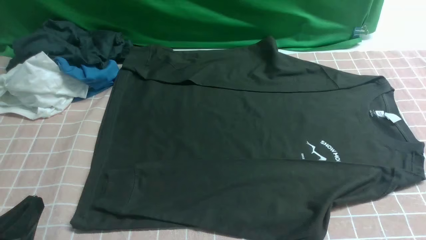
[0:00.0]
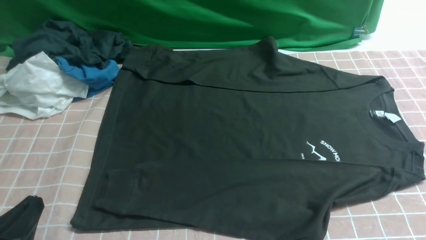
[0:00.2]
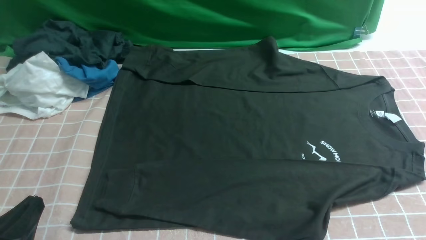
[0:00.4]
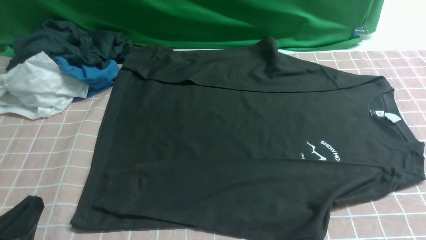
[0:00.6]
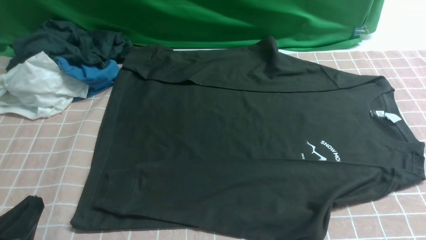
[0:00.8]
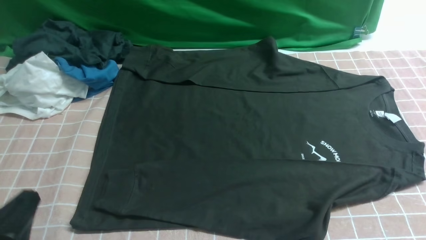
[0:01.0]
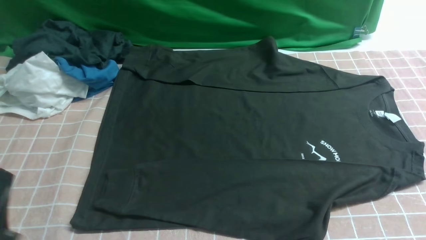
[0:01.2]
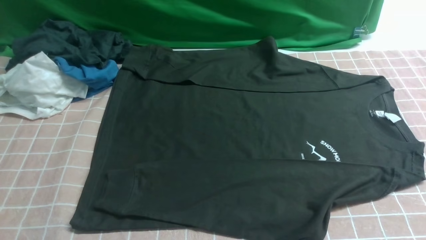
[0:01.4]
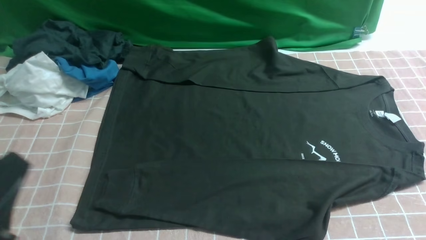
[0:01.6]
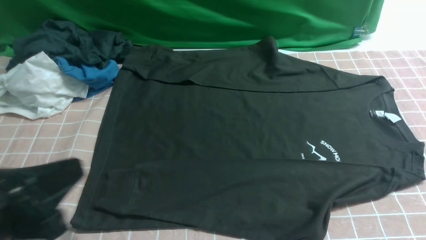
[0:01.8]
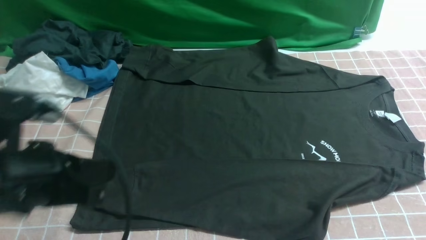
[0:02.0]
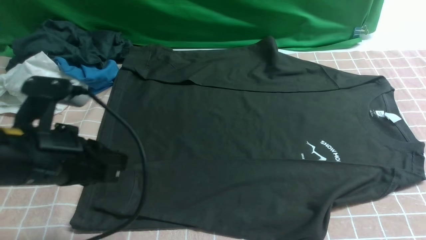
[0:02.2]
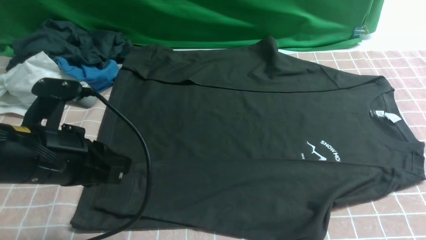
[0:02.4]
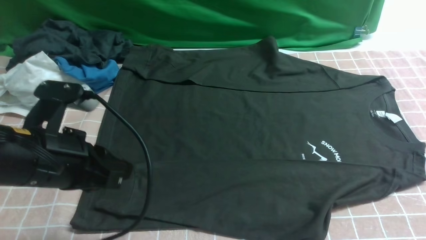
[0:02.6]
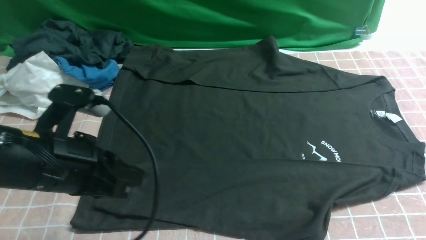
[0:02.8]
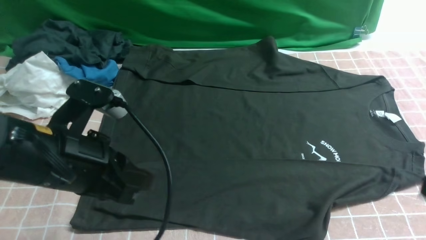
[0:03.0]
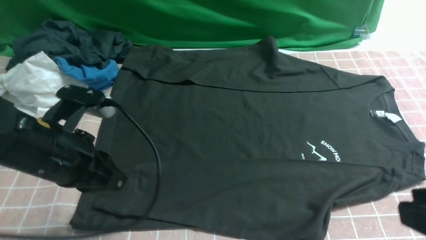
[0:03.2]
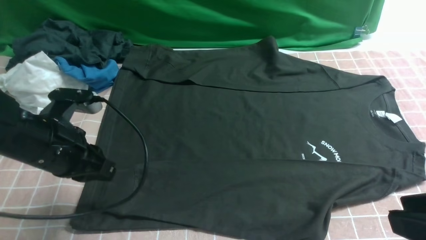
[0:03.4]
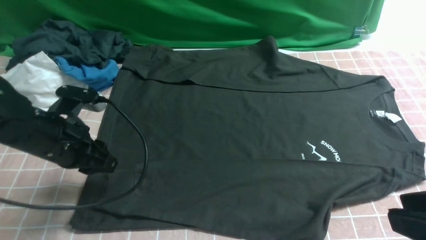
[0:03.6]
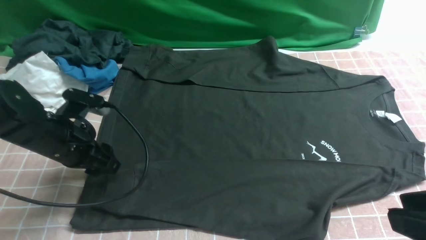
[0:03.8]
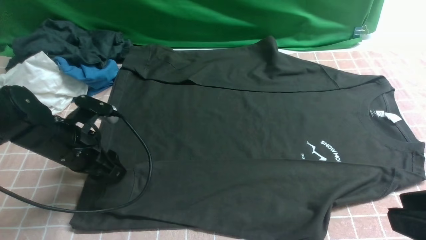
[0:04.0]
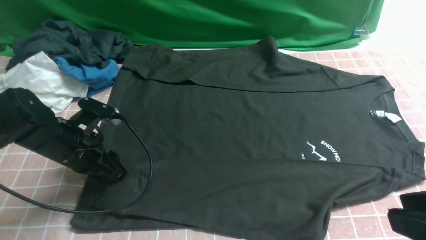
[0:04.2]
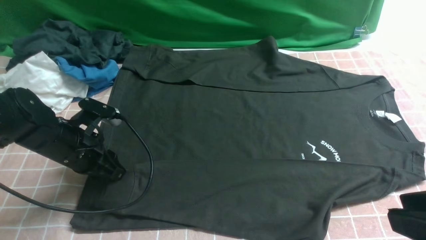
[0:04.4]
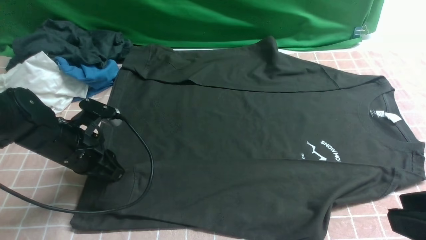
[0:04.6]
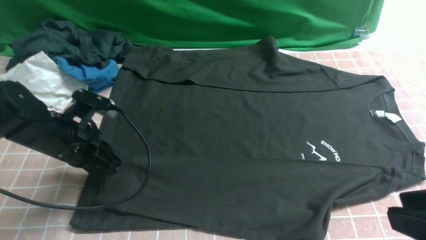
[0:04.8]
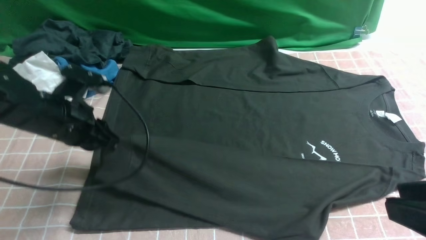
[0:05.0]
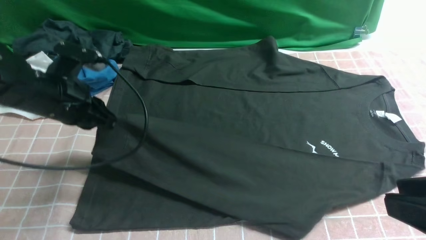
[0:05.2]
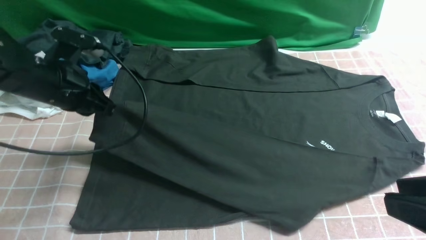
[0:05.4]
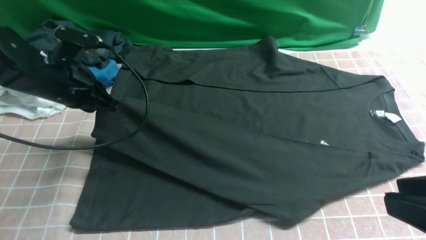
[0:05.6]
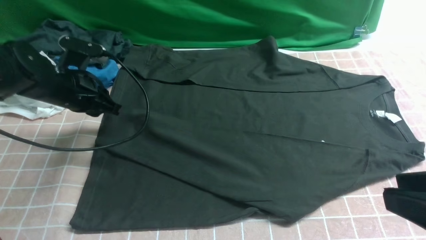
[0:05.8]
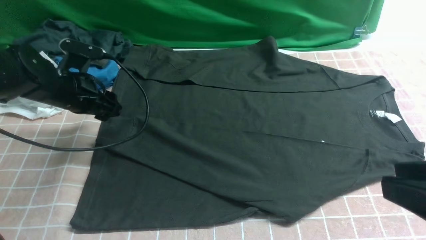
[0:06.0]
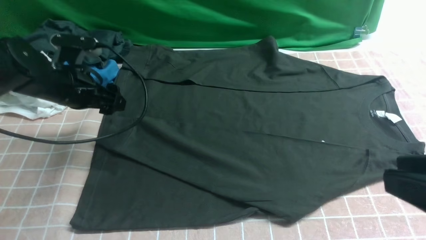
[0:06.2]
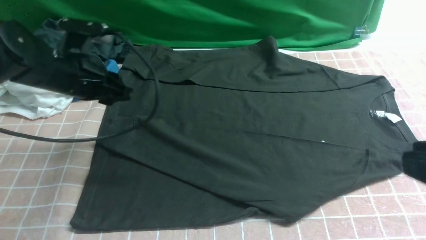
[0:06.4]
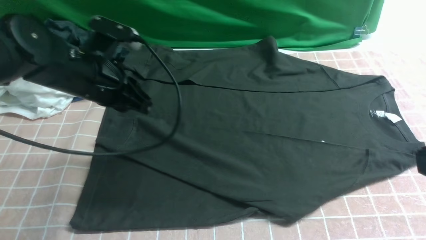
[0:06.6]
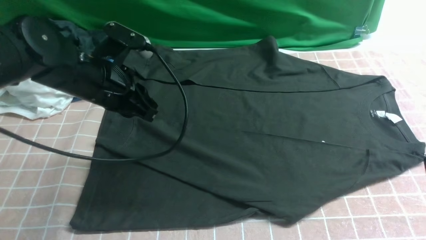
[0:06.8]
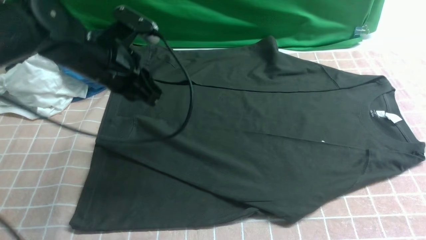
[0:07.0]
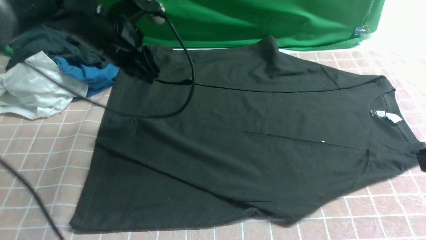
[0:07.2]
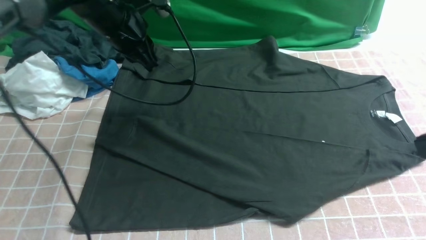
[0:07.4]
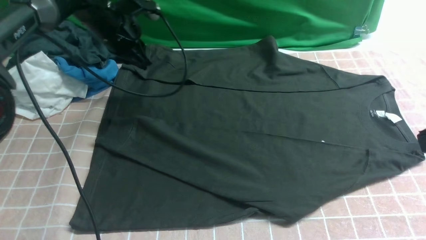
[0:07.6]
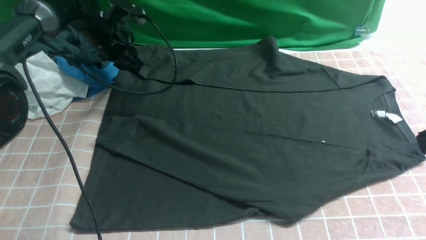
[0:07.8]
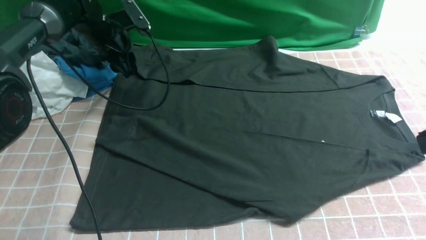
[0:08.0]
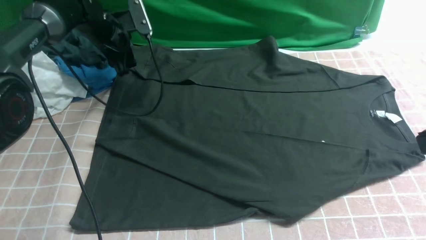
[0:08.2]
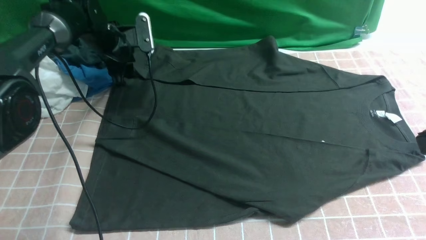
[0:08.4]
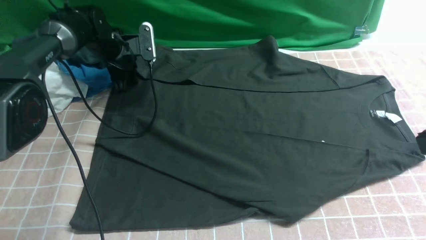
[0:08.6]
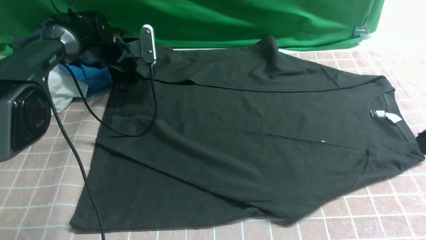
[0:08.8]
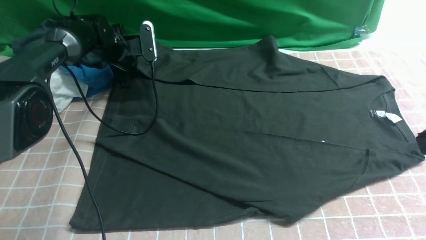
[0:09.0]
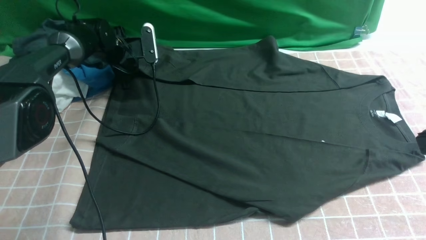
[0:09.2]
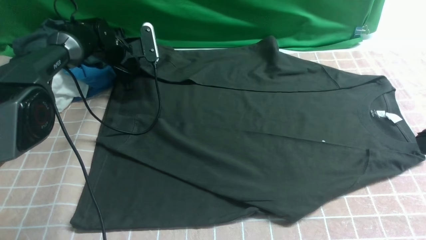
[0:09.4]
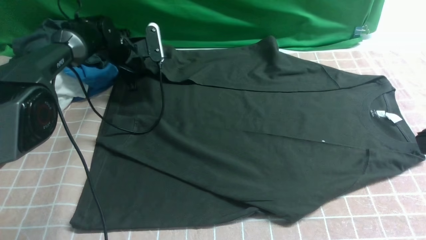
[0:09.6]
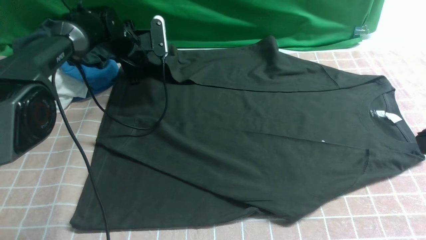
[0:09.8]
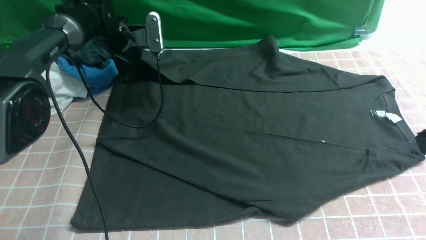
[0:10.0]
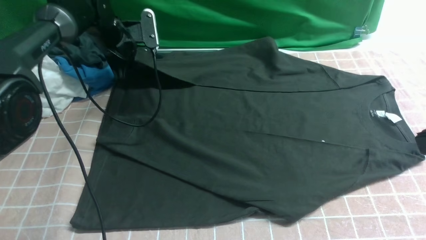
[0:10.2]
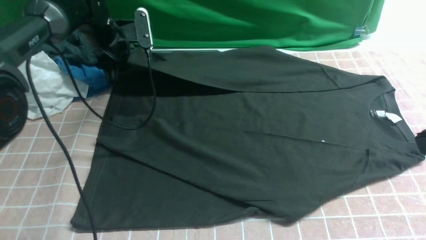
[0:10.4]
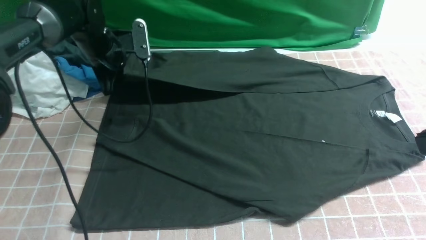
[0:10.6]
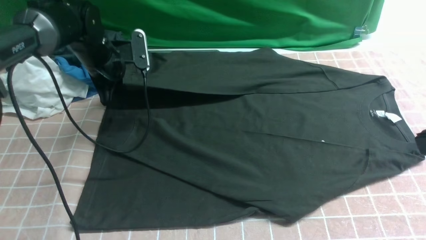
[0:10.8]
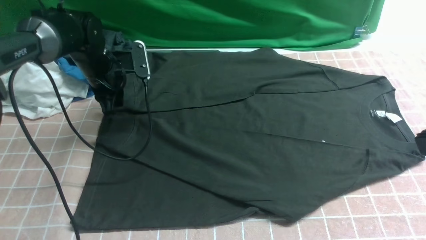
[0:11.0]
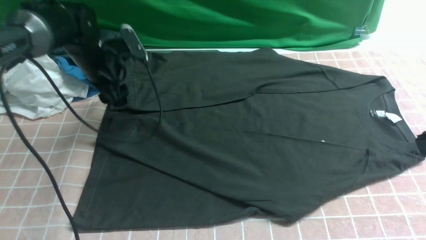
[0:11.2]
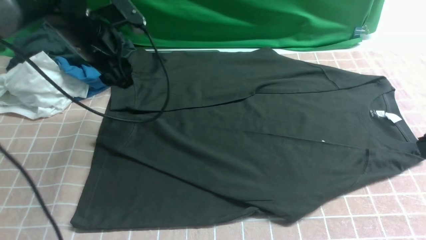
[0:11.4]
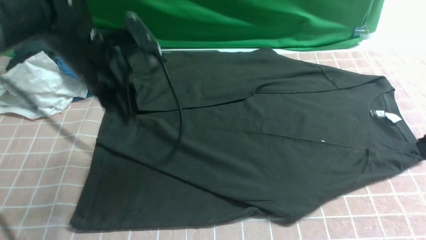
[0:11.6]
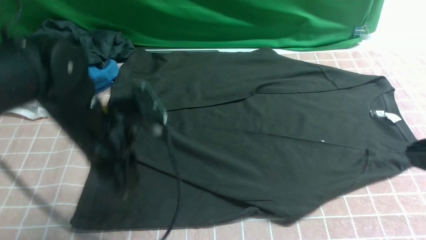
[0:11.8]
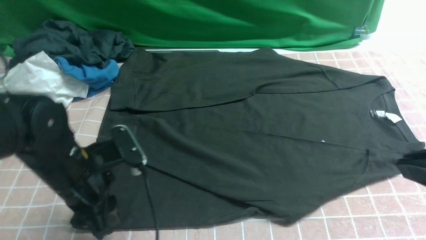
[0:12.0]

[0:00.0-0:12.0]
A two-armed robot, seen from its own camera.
Step, 0:00.0 to 0:04.8: use the left arm to clamp the cuff closest to it.
Step, 0:05.0 to 0:06.2: use the left arm to drag and place the cuff at the centered position on the left edge of the fabric.
Step, 0:06.4 to 0:09.6: use the left arm to clamp the cuff farthest from it.
Step, 0:09.8 to 0:11.4: use the left arm to drag and drop the cuff onto the cuff closest to the left arm.
0:00.0 to 0:01.6: The left gripper shifts roughly 10 cm upward.
0:01.6 to 0:03.0: The left gripper shifts approximately 15 cm forward.
0:03.0 to 0:04.4: The left gripper goes some 15 cm downward, forward and to the left, and opens, then closes again.
0:04.4 to 0:06.0: The left gripper travels forward and upward by some 10 cm, and opens up.
0:06.0 to 0:07.6: The left gripper travels forward by about 10 cm, and closes up. The right gripper closes its fingers.
0:07.6 to 0:09.0: The left gripper goes some 10 cm downward and forward, and opens up.
0:09.0 to 0:10.4: The left gripper is displaced upward by roughly 5 cm, and closes up.
0:10.4 to 0:12.0: The left gripper is displaced backward by some 25 cm, and opens its fingers.

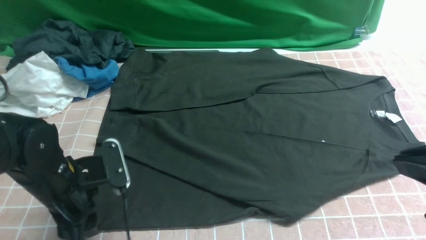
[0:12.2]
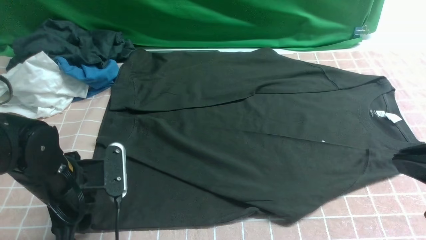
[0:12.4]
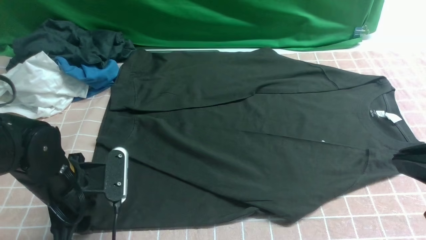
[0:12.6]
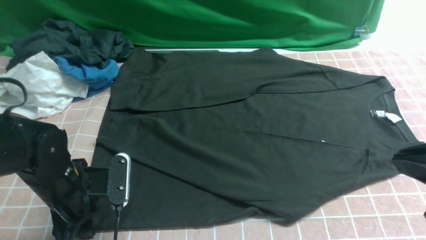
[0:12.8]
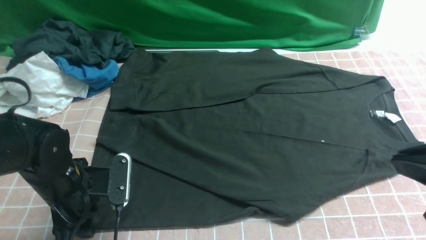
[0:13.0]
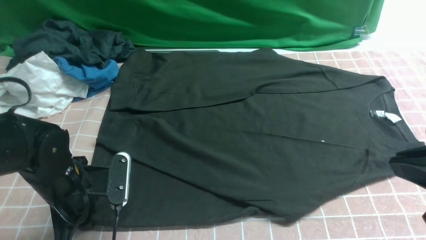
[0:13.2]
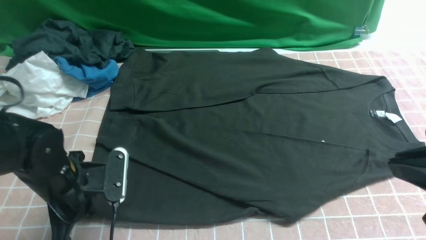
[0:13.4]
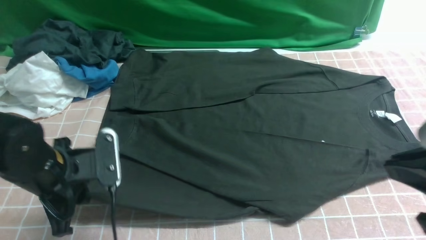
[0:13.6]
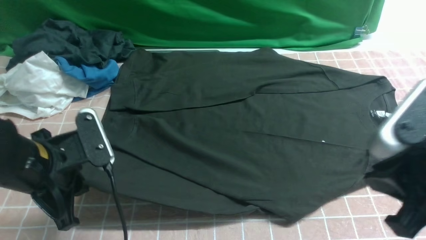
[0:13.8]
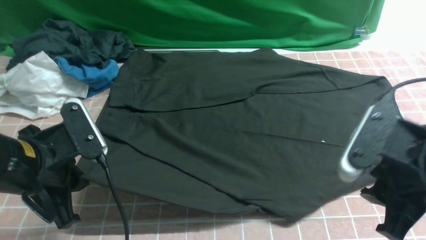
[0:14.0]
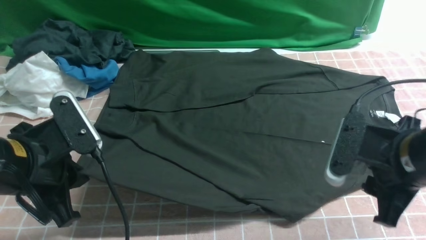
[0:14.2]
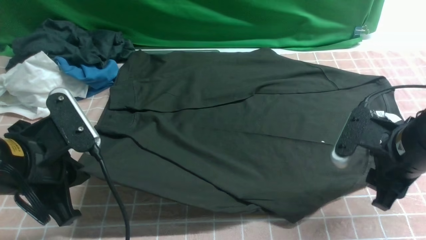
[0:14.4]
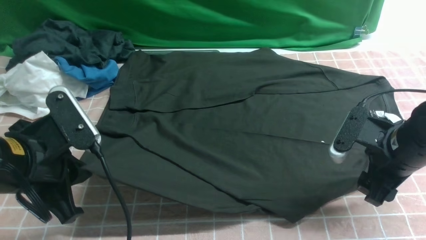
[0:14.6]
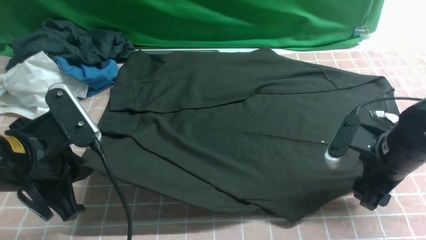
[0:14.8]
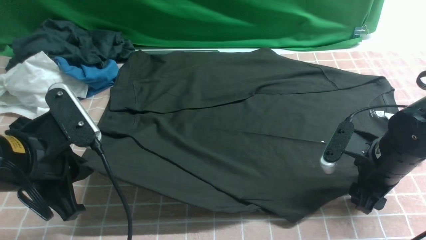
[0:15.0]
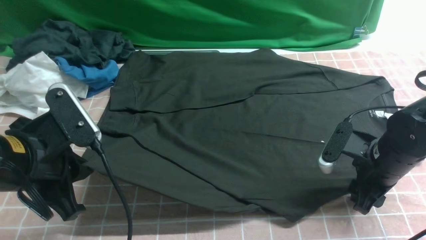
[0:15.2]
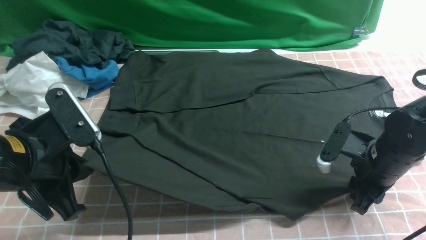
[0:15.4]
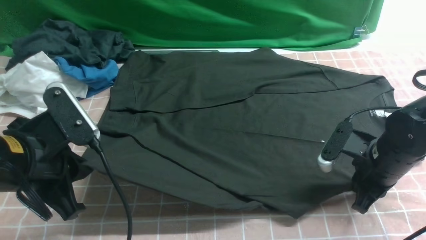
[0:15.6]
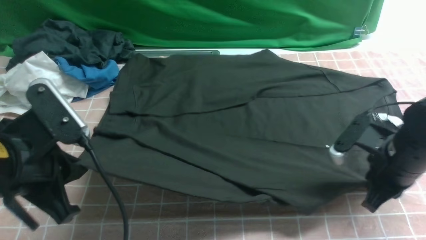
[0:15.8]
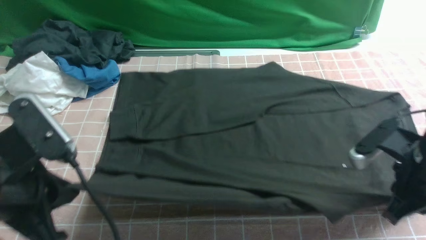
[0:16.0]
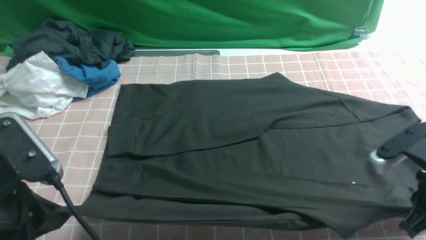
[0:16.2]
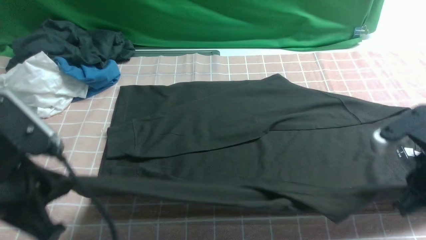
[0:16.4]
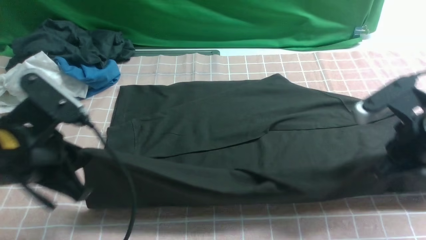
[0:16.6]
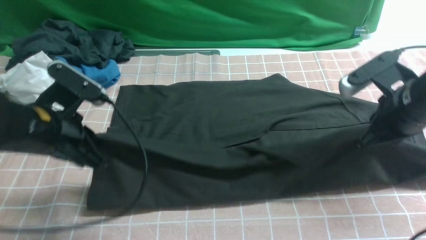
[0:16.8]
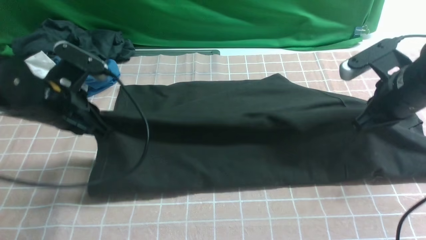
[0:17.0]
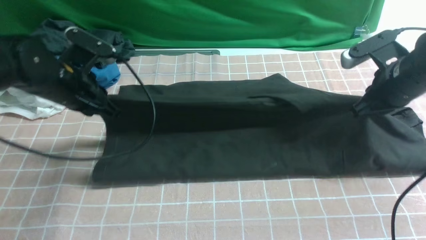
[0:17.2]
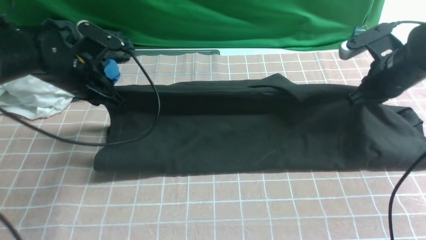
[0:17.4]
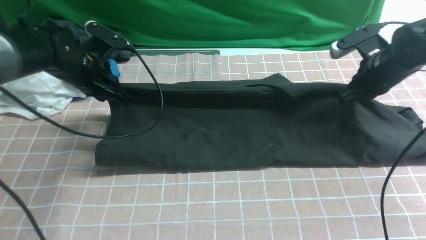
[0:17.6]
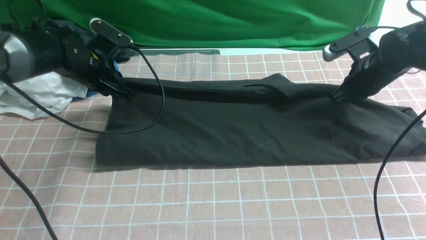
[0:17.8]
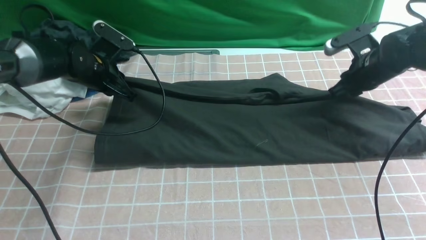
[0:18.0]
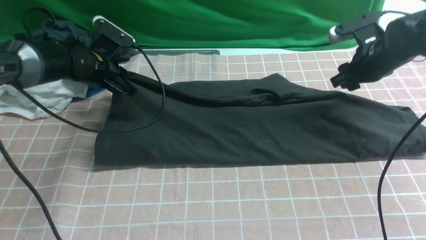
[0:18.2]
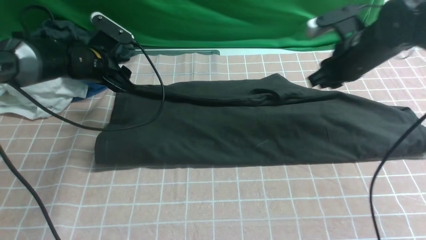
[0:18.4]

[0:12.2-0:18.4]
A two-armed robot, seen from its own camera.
Step, 0:12.2 to 0:15.8: use both arms simultaneously to clamp the lower edge of the clothing fabric.
0:12.2 to 0:13.8: The left gripper shifts by roughly 5 cm, and closes.
0:13.8 to 0:15.4: The right gripper travels downward and forward by approximately 20 cm, and opens and closes again.
0:15.4 to 0:16.8: The left gripper is displaced forward by roughly 5 cm. The right gripper heads upward, covering approximately 10 cm, and closes its fingers.
0:16.8 to 0:18.4: The grippers both shift forward by some 15 cm. The left gripper opens its fingers.
